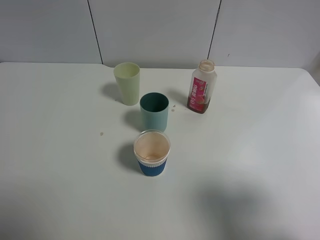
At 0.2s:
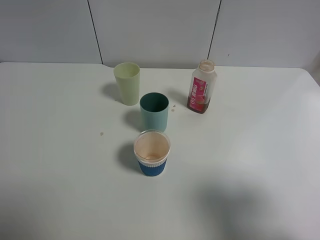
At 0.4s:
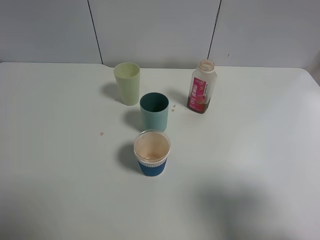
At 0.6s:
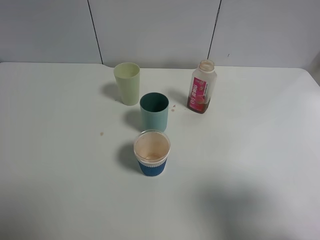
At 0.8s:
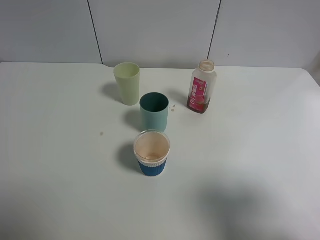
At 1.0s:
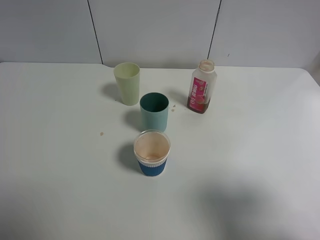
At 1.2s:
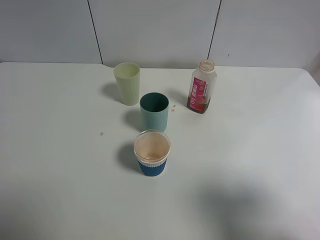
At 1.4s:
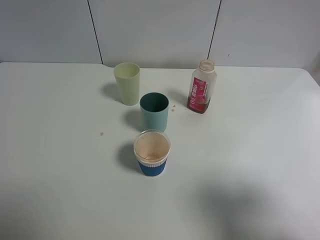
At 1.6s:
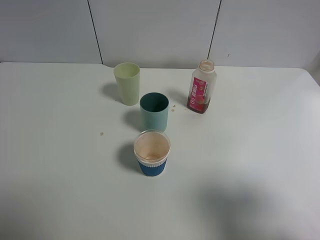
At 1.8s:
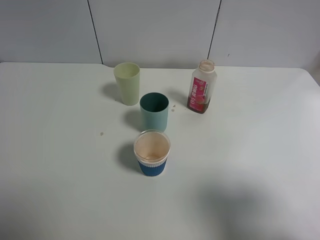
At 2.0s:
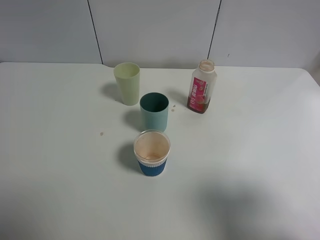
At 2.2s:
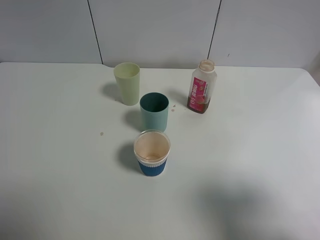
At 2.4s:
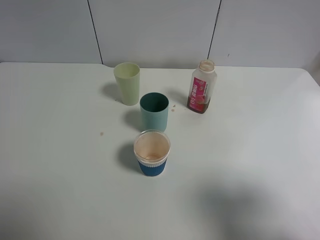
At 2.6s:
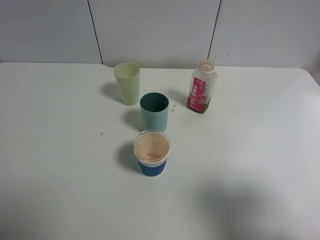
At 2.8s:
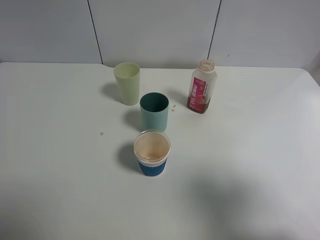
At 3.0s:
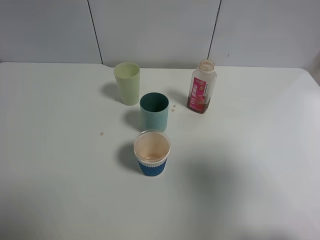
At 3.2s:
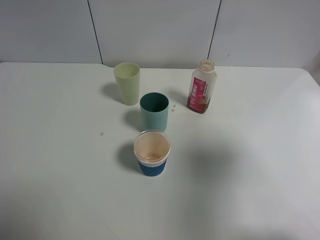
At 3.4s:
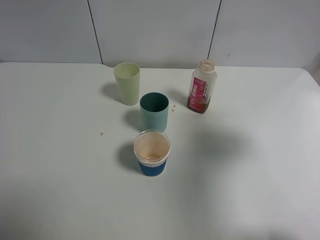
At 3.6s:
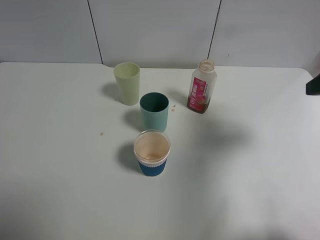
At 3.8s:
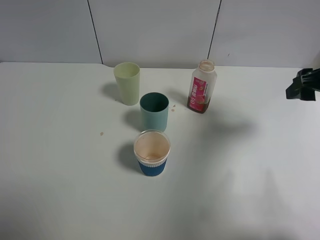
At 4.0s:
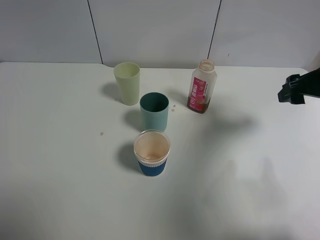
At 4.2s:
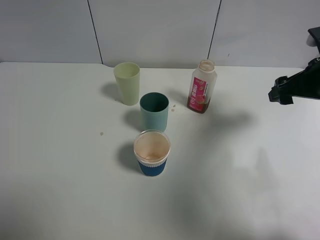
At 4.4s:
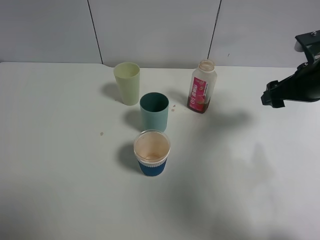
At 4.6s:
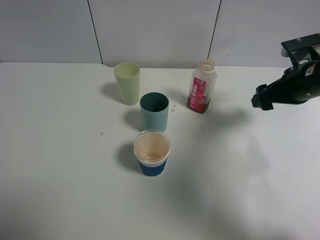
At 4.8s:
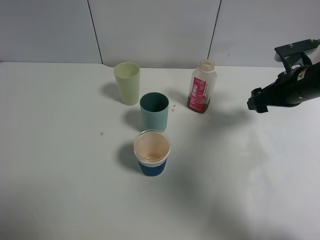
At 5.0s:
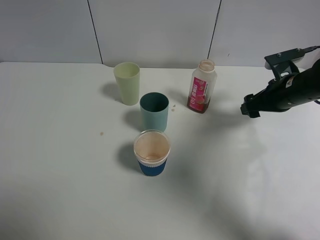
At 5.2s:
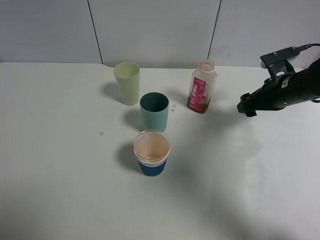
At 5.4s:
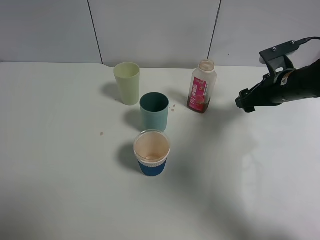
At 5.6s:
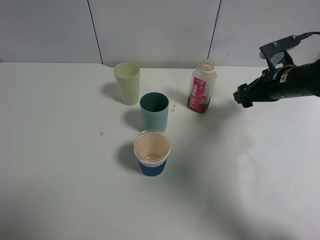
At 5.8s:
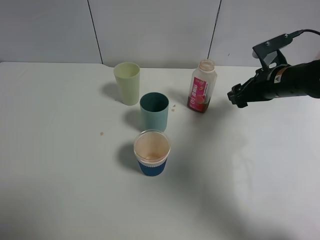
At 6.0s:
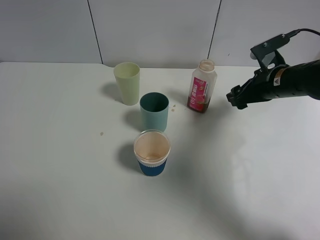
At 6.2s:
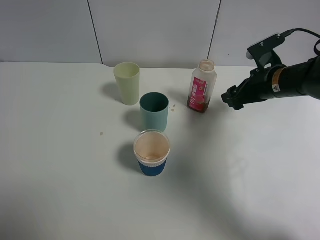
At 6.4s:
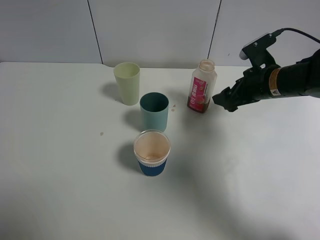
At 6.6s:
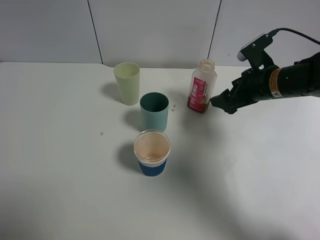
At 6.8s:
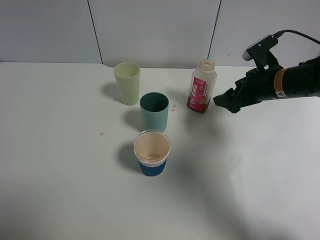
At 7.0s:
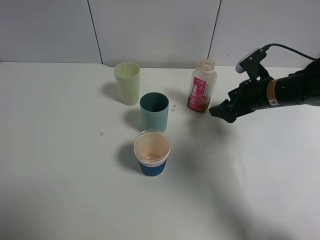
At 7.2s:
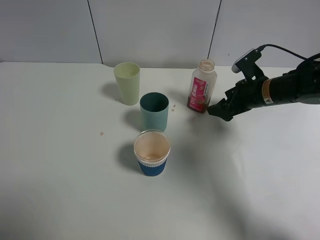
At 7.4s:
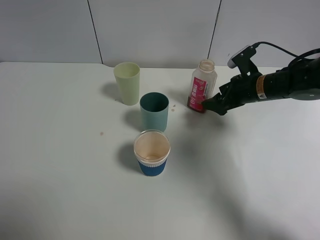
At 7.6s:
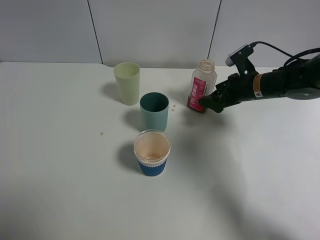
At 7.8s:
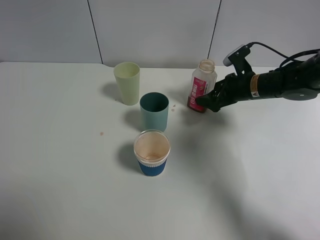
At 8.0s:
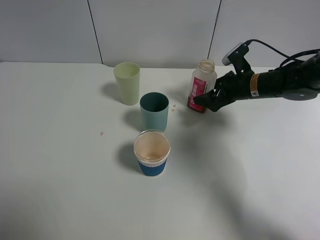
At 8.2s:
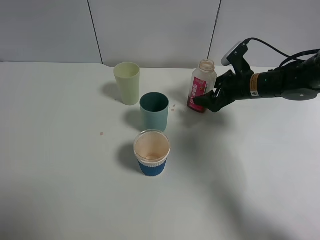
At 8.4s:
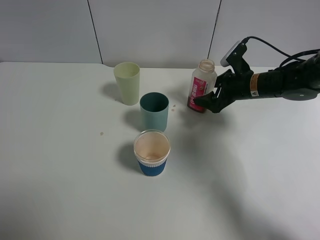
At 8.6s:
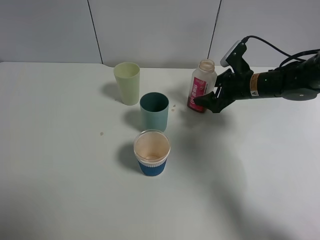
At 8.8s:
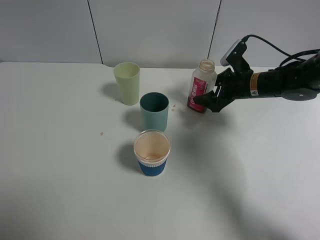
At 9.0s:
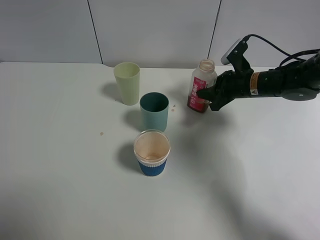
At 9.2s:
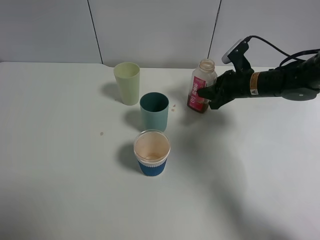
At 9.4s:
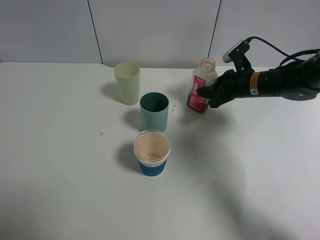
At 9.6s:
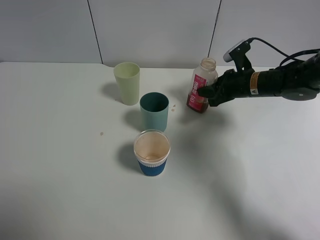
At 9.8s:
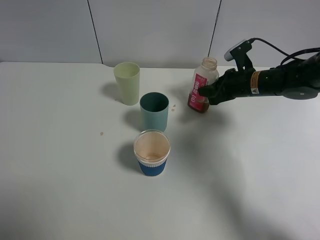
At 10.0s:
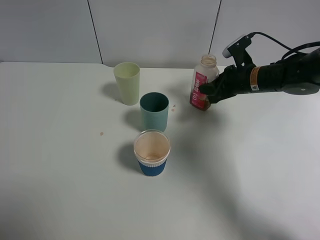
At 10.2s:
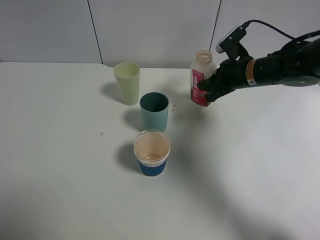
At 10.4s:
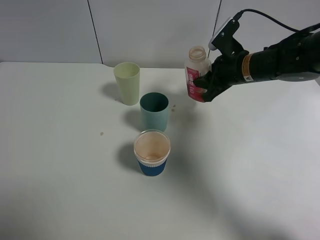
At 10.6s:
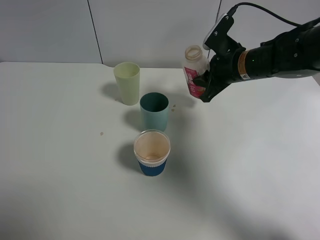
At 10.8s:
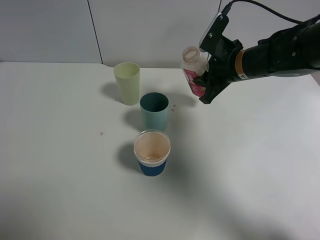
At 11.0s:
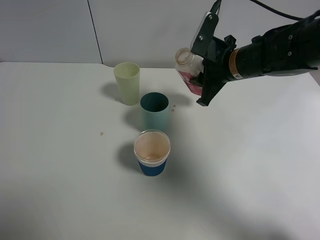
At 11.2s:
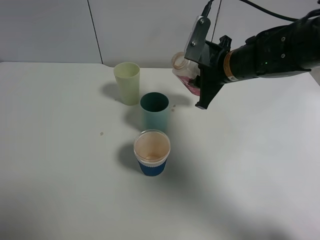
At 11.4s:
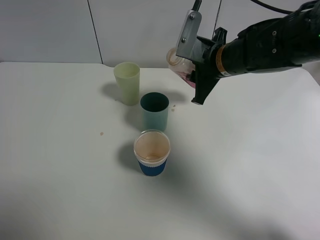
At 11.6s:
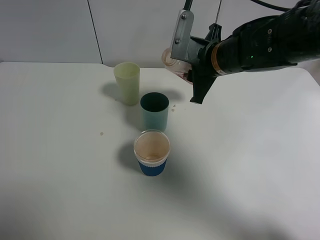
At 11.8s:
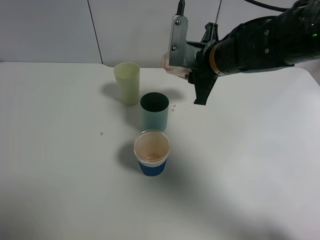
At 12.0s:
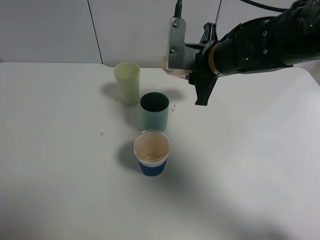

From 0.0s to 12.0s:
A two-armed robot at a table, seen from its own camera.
Task of the whole recording: use a gripper to hold the bottle of the drink and pour it into a random cup.
Step, from 0.0s to 9.2s: Grasp the cranberry juice bottle with the right gripper.
From 0.0s to 1.6s: Both grippers stay put.
From 1.6s to 3.0s: The right gripper is displaced upward by approximately 5 cm.
From 3.0s to 4.4s: The right gripper goes approximately 25 cm forward and downward.
From 4.4s to 6.0s: The right gripper ends up about 5 cm from where it was.
From 6.0s to 7.6s: The right gripper changes place by roughly 5 cm.
From 7.6s to 9.0s: The right gripper closes.
From 9.0s to 10.4s: The right gripper heads upward, covering approximately 5 cm.
From 10.4s to 12.0s: The right gripper travels to the left by approximately 5 cm.

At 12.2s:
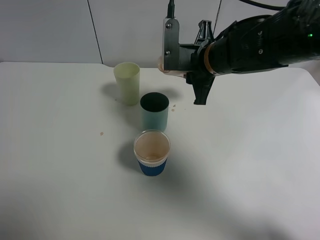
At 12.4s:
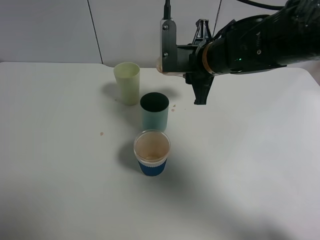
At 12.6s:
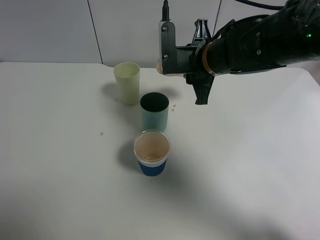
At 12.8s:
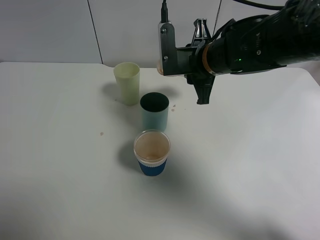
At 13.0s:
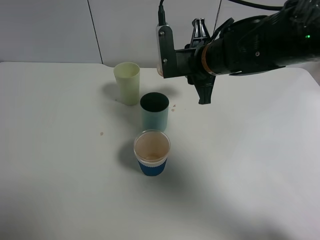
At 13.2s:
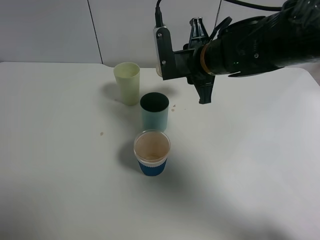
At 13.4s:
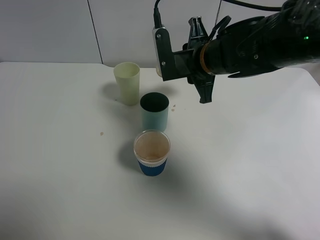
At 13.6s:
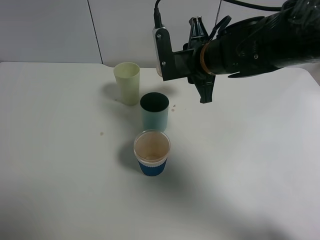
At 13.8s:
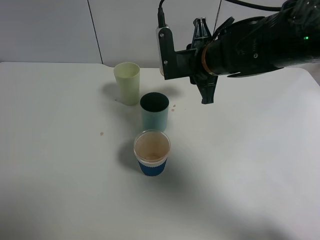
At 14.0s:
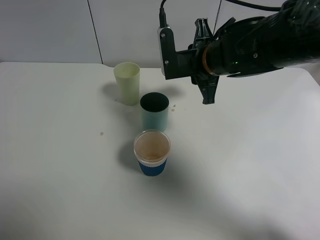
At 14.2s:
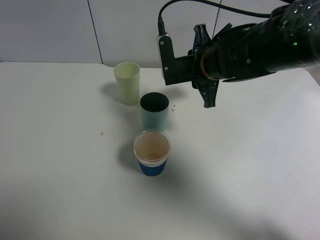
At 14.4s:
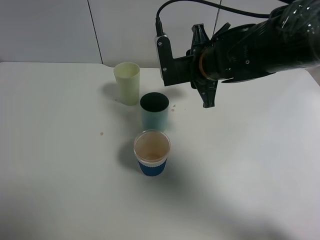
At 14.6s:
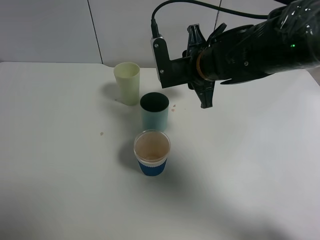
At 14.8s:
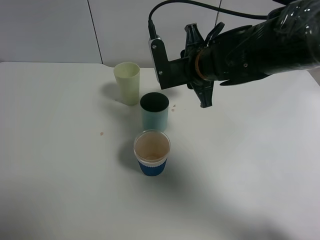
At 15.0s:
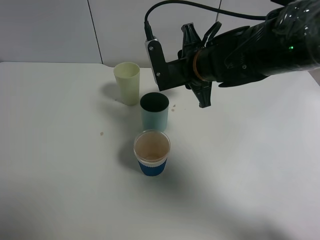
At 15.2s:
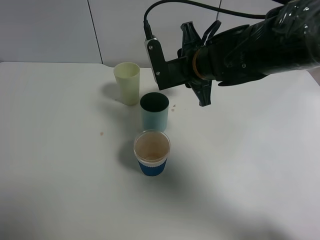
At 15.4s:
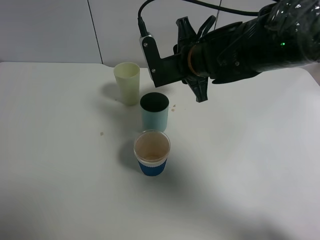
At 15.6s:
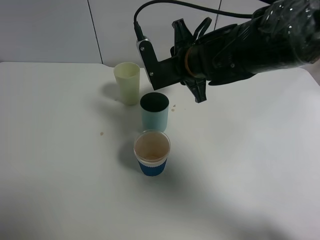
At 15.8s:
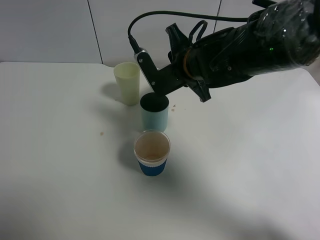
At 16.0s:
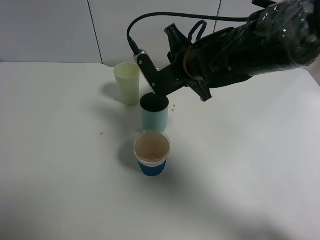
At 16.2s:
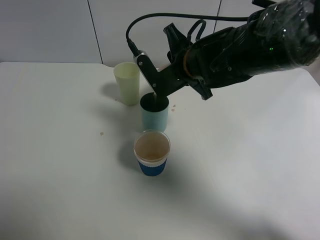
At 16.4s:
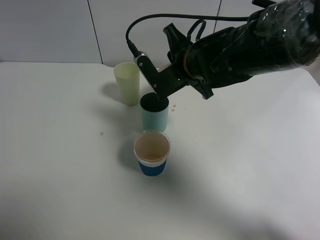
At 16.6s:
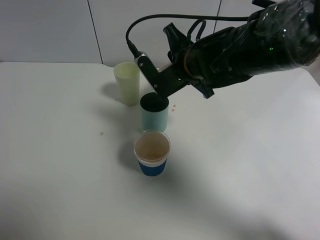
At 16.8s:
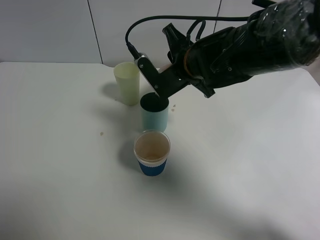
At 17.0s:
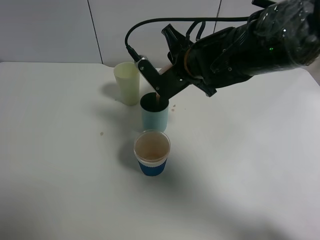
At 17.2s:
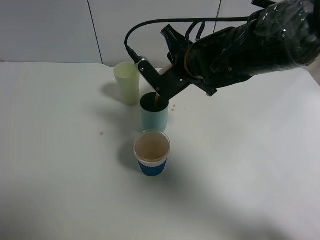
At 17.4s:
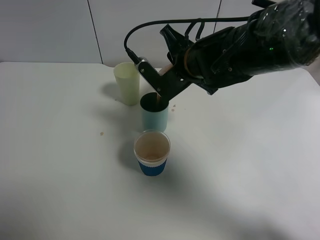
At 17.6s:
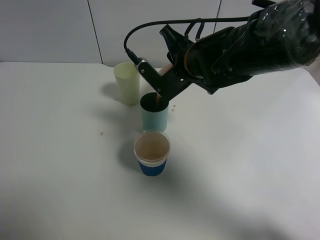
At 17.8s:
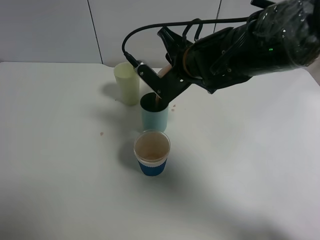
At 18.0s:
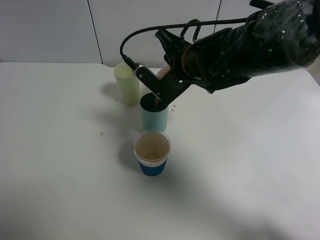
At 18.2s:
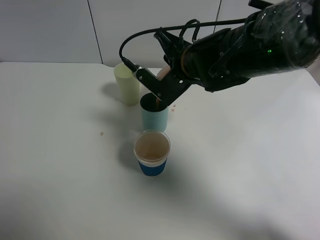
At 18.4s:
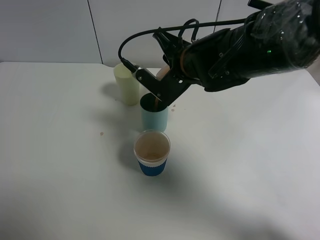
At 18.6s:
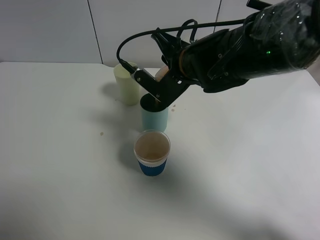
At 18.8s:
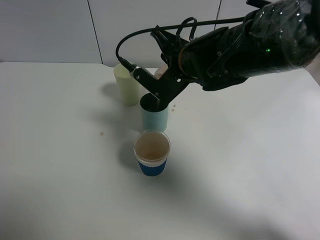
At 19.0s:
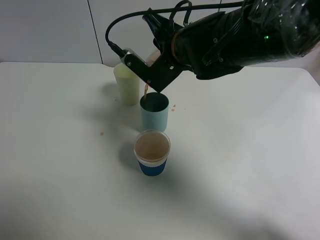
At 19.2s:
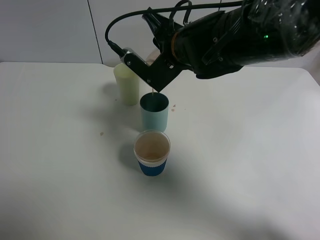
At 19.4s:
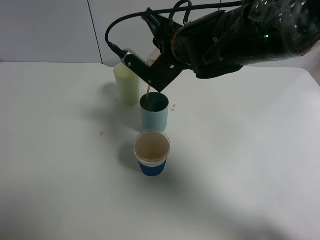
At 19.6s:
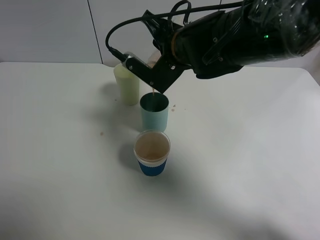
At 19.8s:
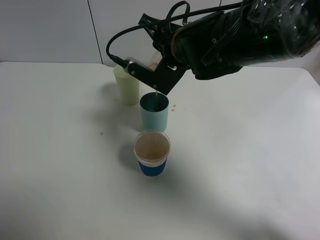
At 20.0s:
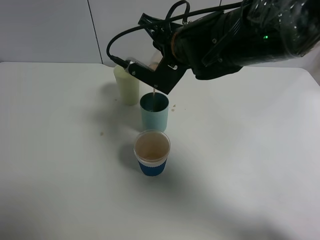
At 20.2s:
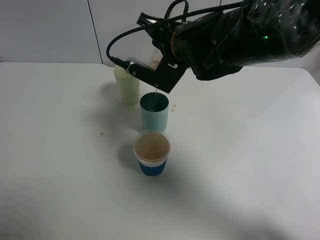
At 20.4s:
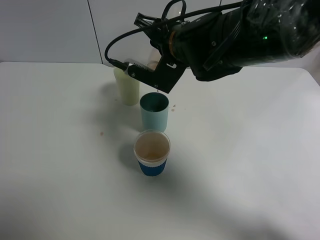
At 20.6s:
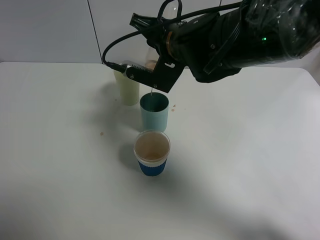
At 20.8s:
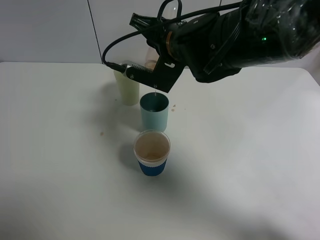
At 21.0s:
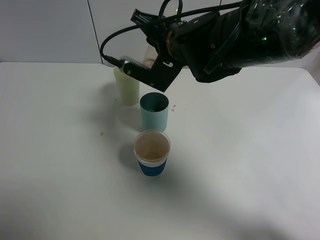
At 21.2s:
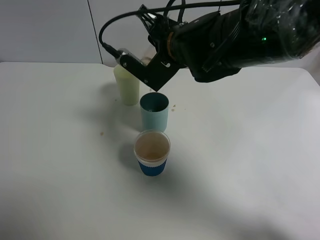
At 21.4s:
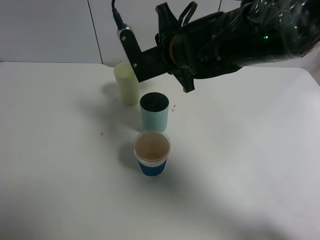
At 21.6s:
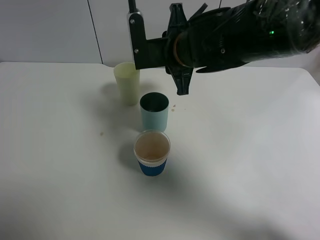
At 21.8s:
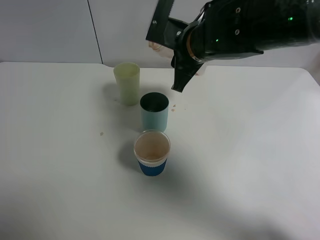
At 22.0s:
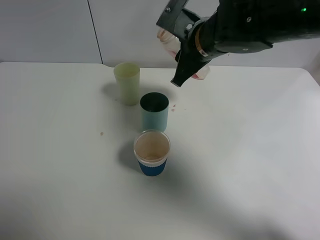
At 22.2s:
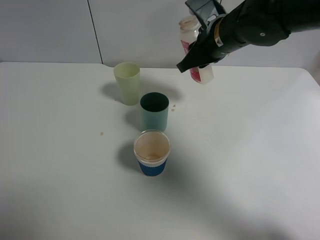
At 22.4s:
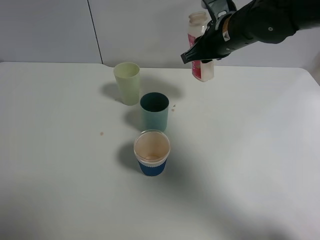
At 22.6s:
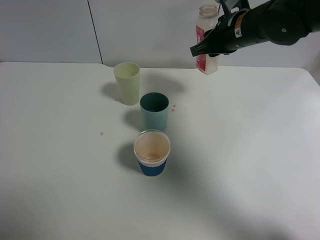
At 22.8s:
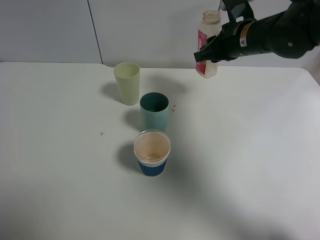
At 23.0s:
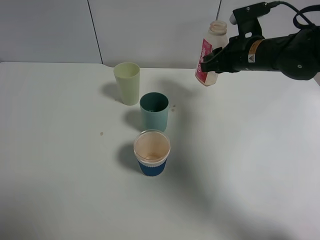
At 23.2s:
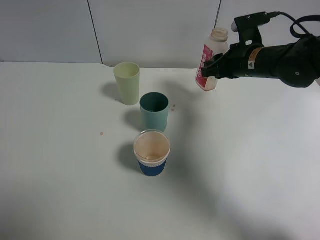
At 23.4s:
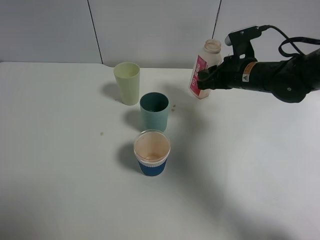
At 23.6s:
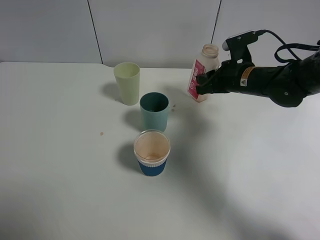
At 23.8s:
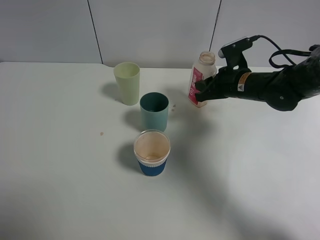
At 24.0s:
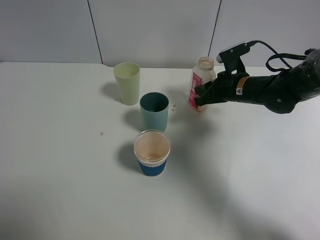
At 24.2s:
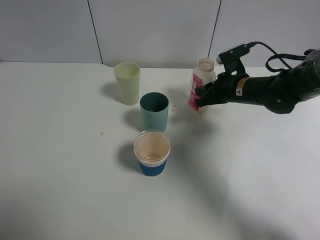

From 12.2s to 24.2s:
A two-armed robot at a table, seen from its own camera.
Task of the whole recording: use a gripper to hold the bottle of the drink and pour it into a random cup.
Step, from 12.2s to 21.2s: Pour the cranberry juice into the cyan cup with the right gripper.
From 12.2s to 15.2s: The grippers move only a little.
From 15.2s to 16.6s: There are only small adjustments of the grippers.
From 16.6s to 18.2s: The grippers make only small movements.
From 18.2s to 19.8s: There are only small adjustments of the grippers.
From 19.8s to 21.2s: There are only small adjustments of the grippers.
From 21.2s to 22.6s: The right gripper is displaced to the right and forward by approximately 15 cm.
From 22.6s to 24.2s: The right gripper goes some 10 cm downward.
